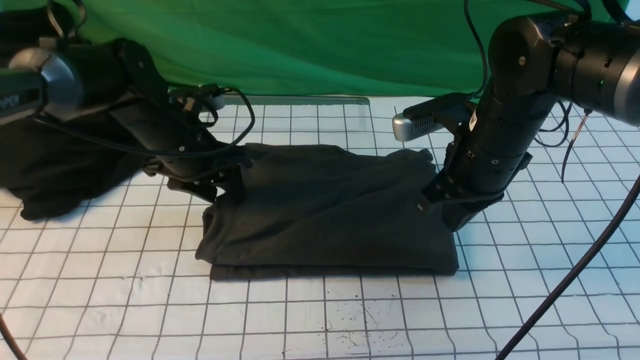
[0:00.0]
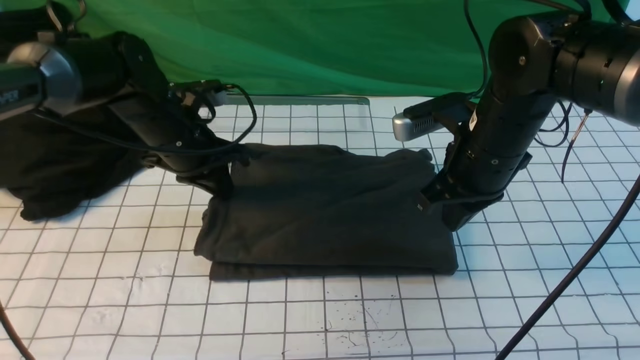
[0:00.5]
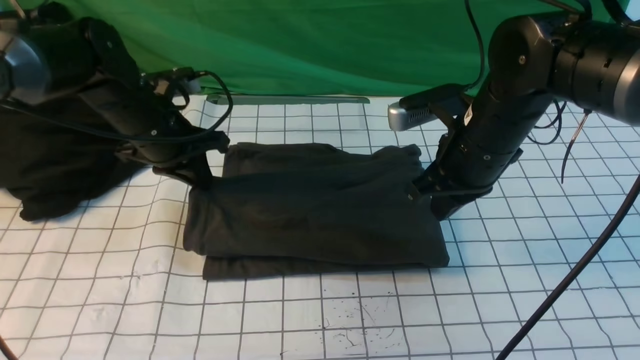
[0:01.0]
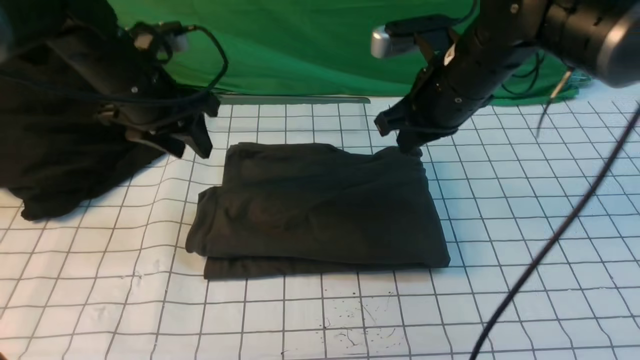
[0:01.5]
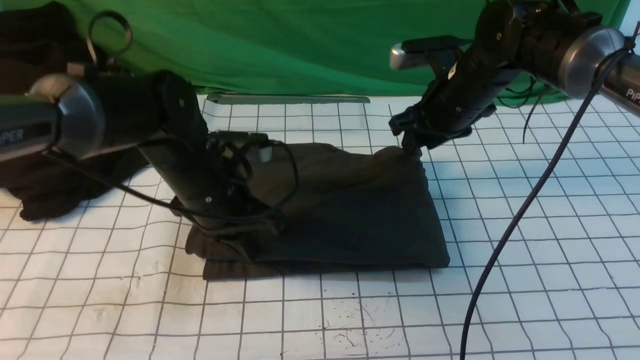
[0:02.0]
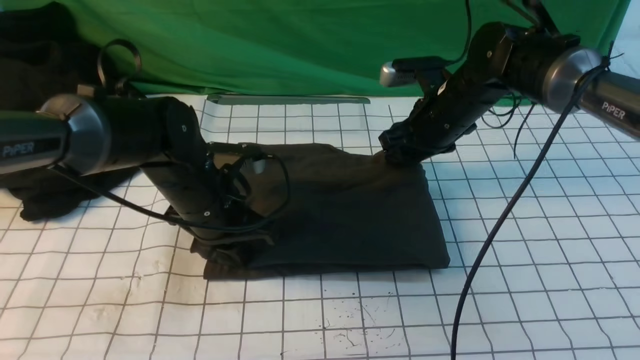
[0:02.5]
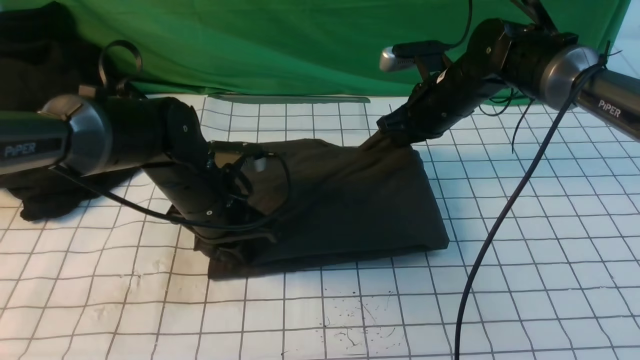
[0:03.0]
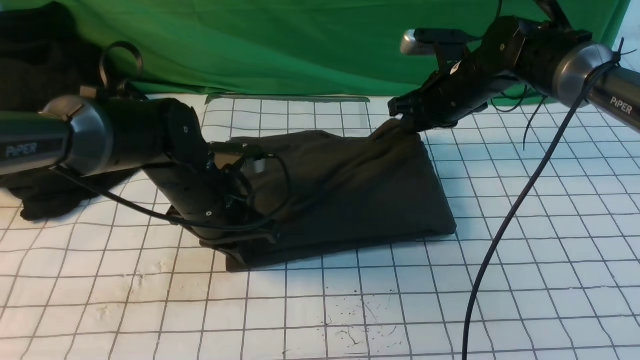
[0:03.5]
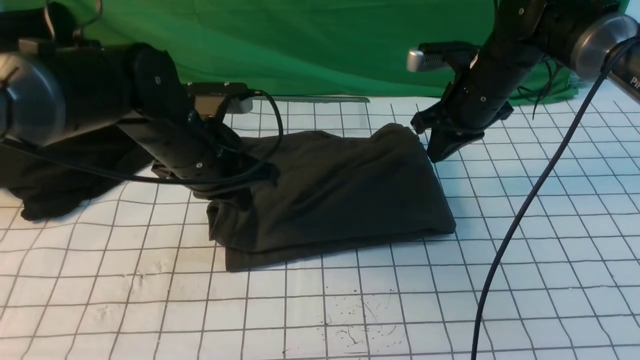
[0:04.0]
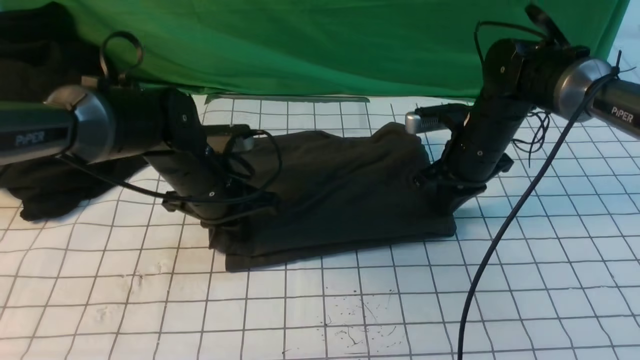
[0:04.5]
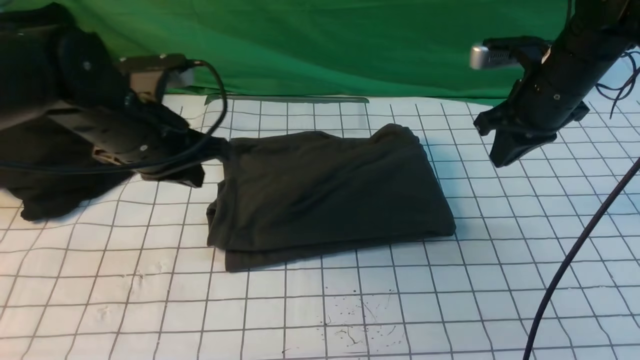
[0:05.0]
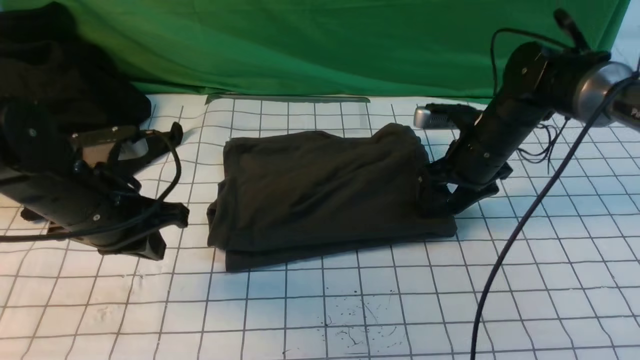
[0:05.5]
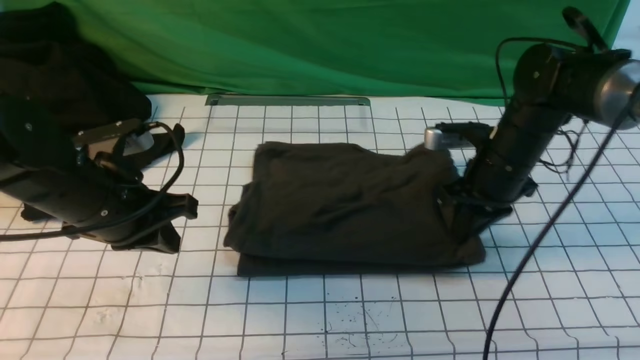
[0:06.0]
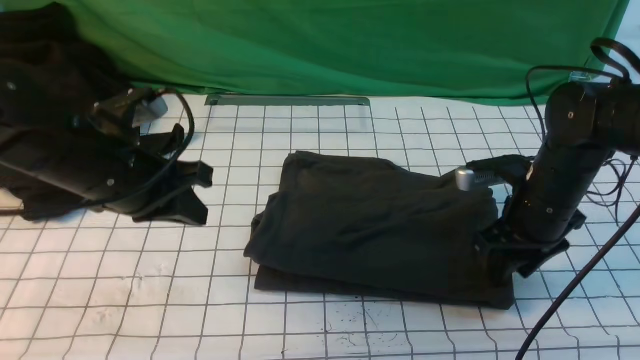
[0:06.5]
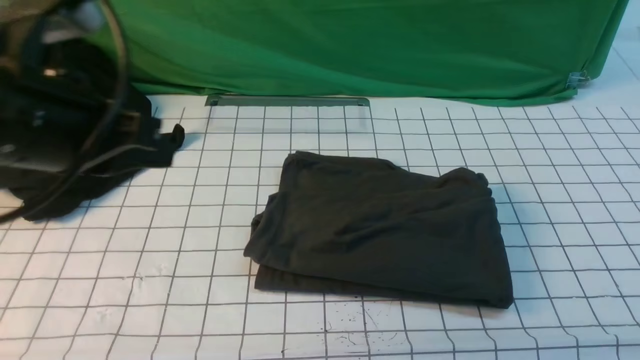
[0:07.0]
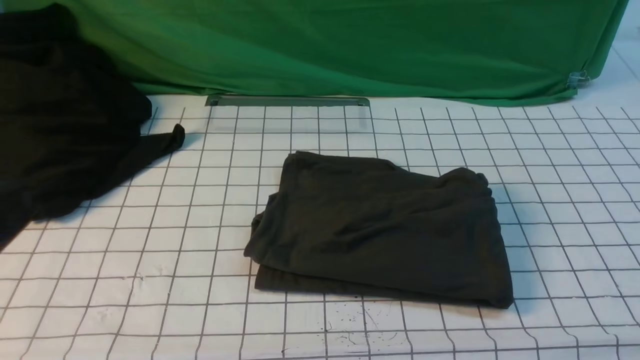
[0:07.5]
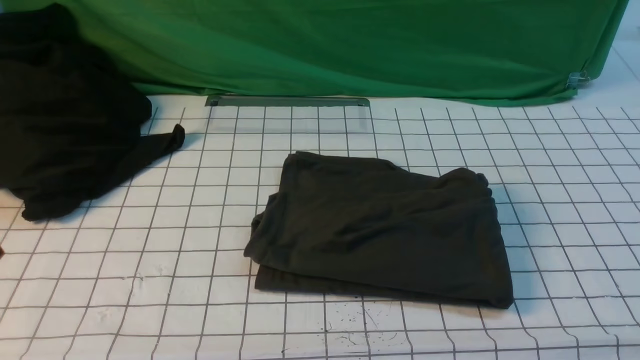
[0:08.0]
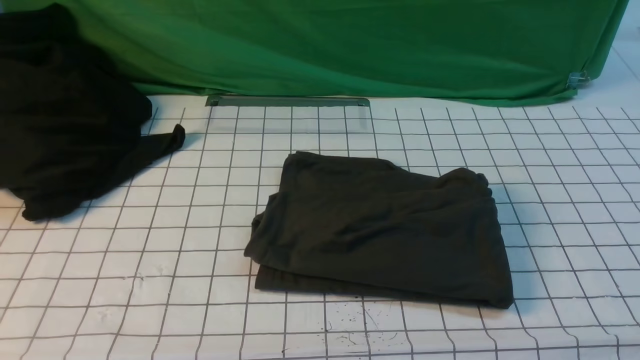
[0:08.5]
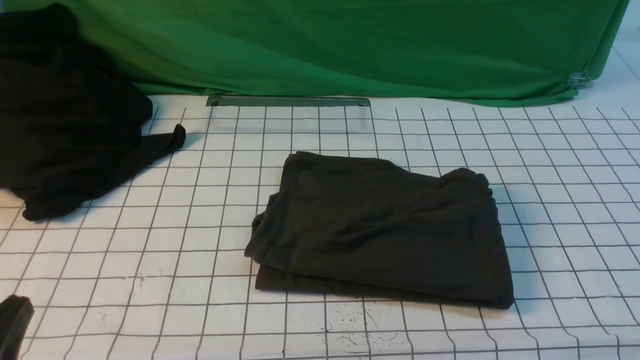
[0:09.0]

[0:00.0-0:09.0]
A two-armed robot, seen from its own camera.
0:00.0 to 0:02.0: The left gripper goes about 5 cm backward, and closes, while the right gripper shifts some 10 cm forward, and opens its fingers.
0:02.0 to 0:04.5: The right gripper moves about 5 cm, and closes.
0:04.5 to 0:07.0: The right gripper shifts some 35 cm backward and upward, and opens, then closes again; the left gripper heads upward, backward and to the left, covering some 25 cm.
0:07.0 to 0:09.0: The two grippers go roughly 20 cm backward and downward.

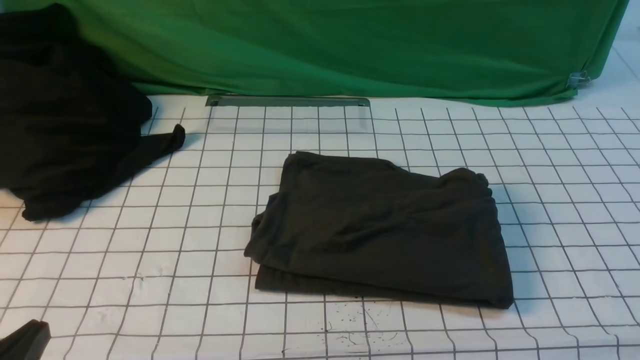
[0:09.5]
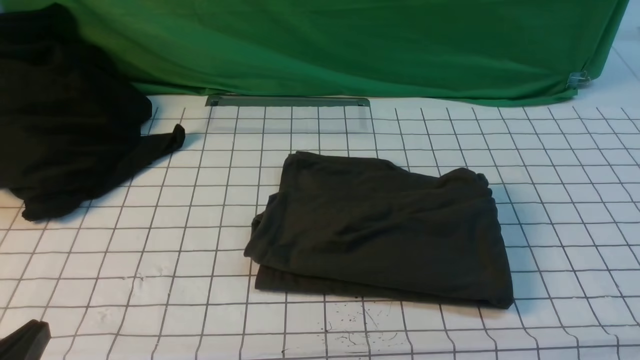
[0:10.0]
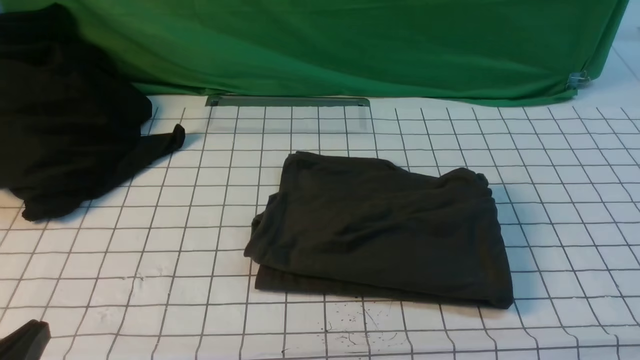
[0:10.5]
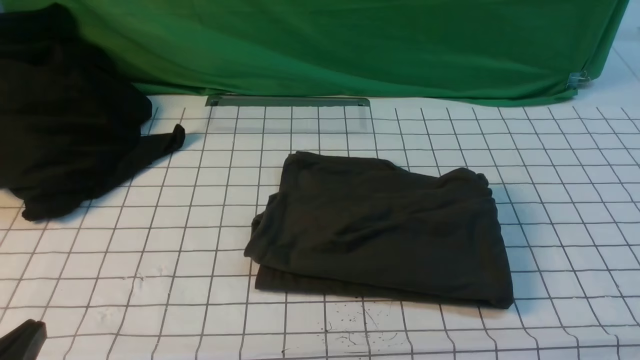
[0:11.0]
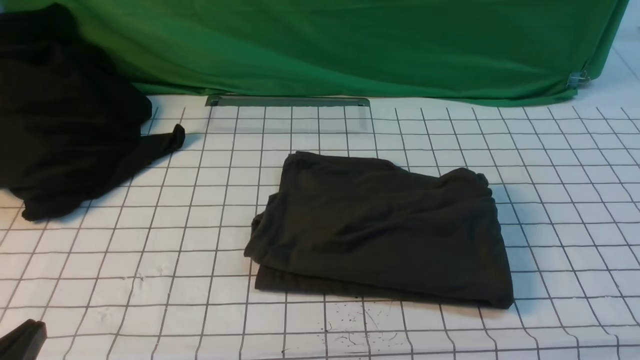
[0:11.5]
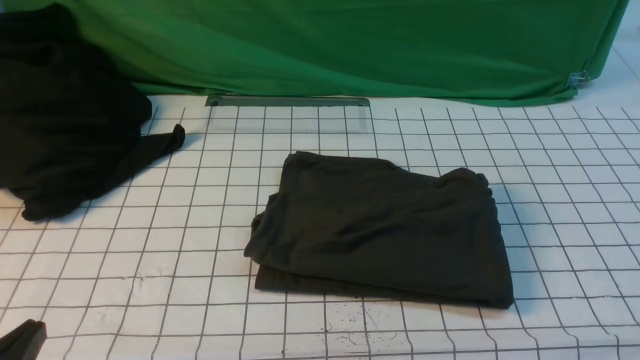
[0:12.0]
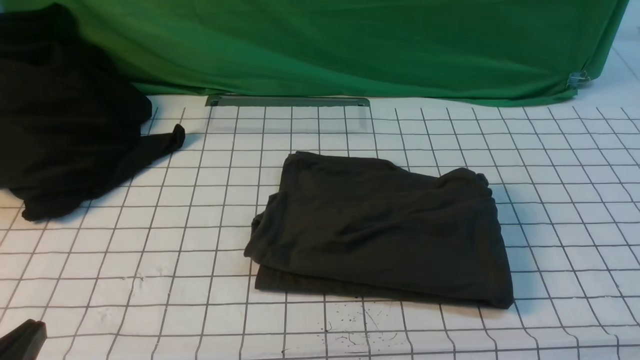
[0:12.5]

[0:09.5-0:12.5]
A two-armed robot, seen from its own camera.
0:11.0 to 0:12.5: Both grippers stay about where they are.
